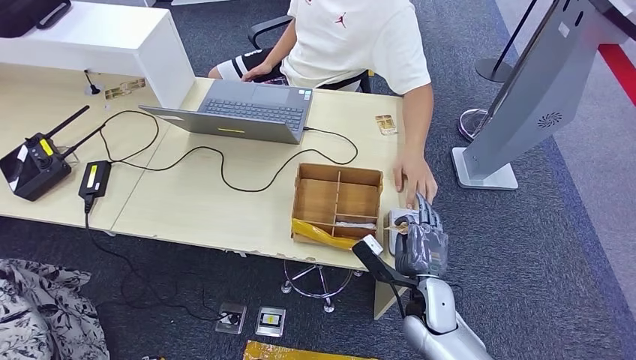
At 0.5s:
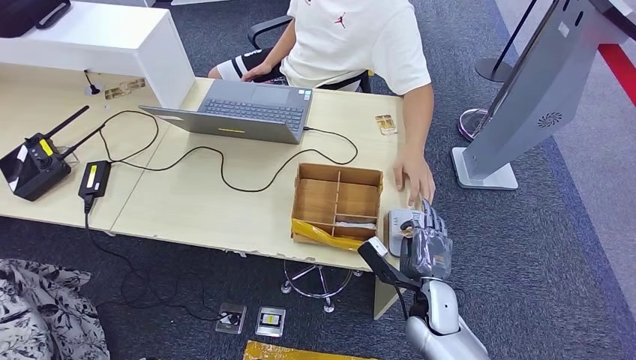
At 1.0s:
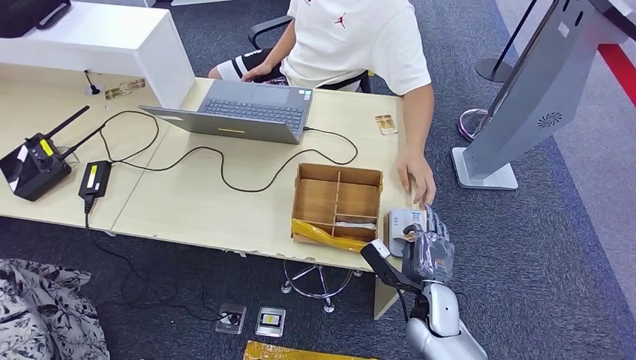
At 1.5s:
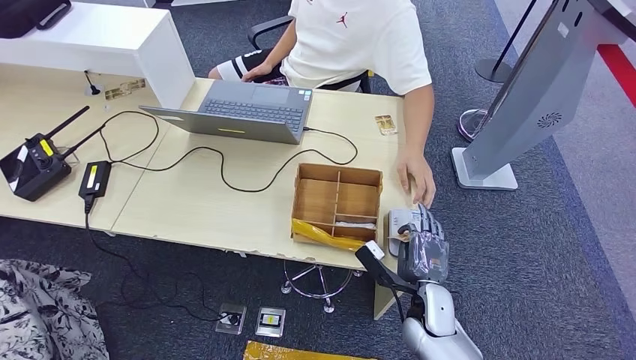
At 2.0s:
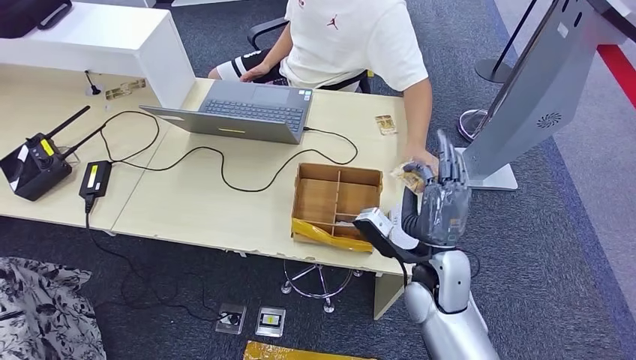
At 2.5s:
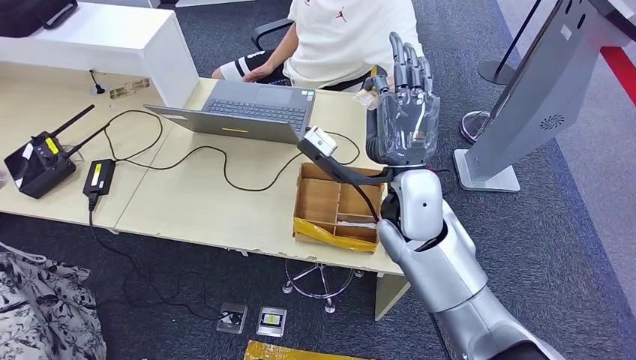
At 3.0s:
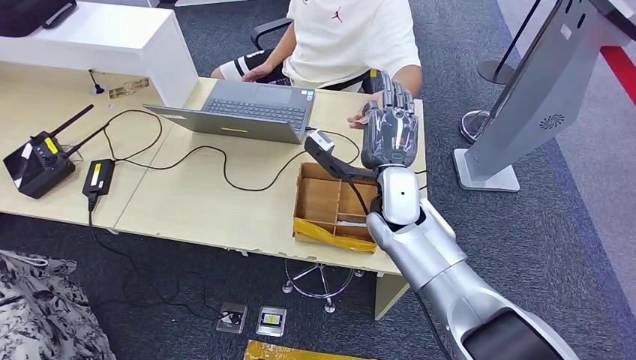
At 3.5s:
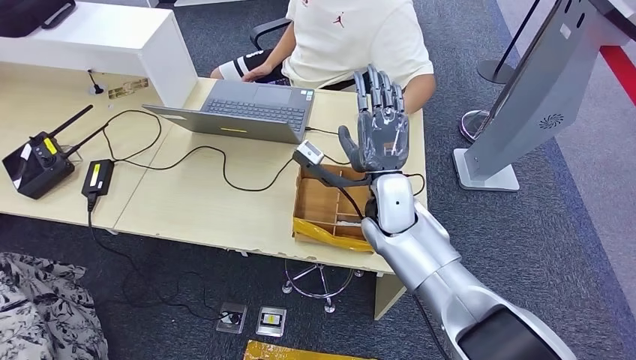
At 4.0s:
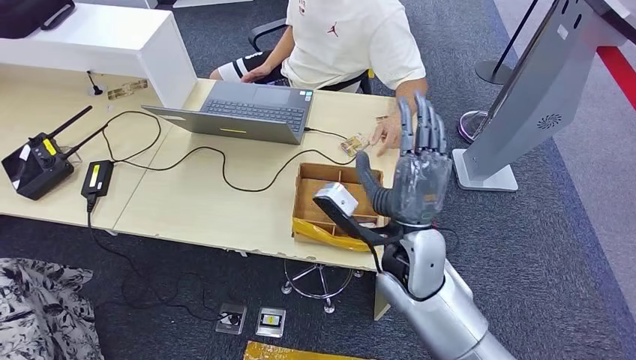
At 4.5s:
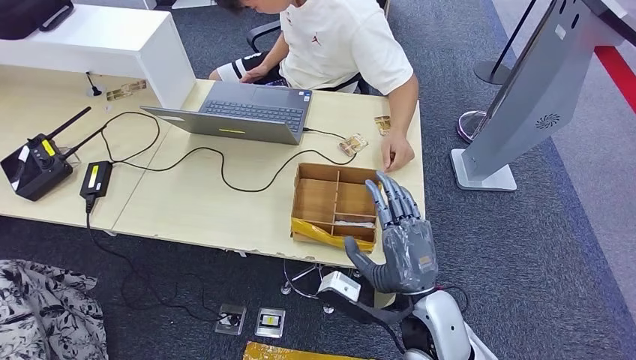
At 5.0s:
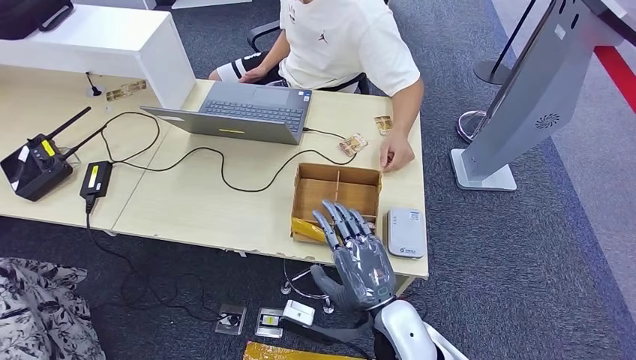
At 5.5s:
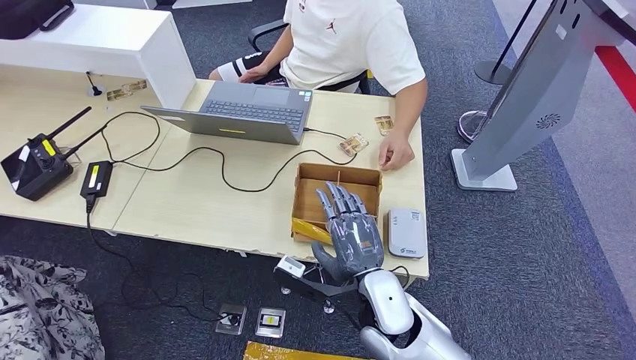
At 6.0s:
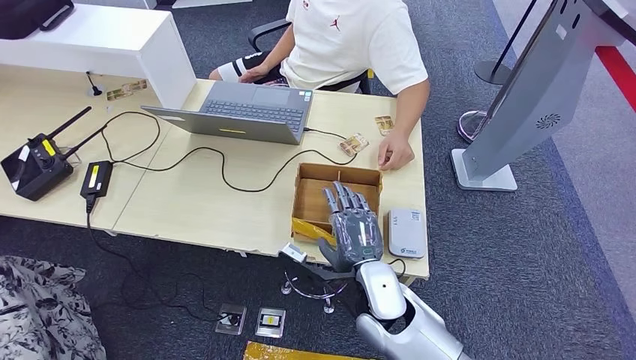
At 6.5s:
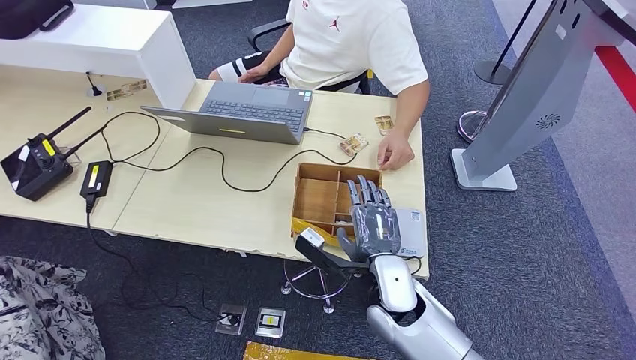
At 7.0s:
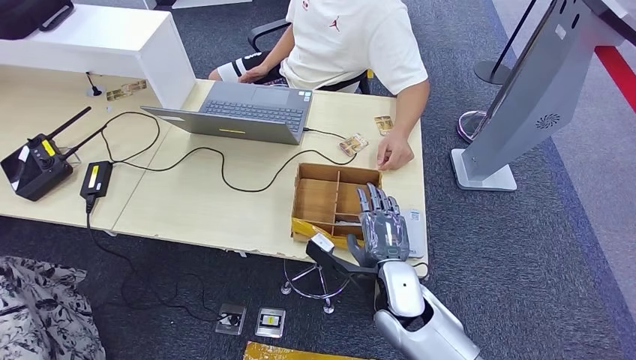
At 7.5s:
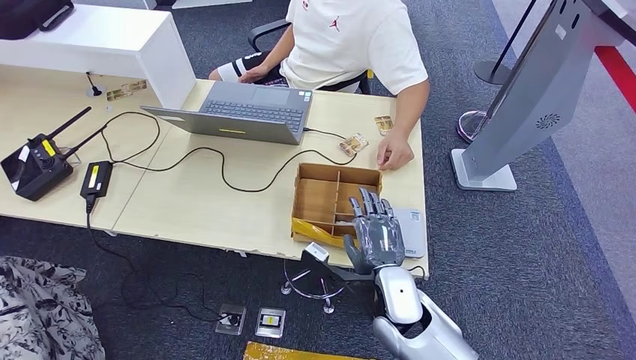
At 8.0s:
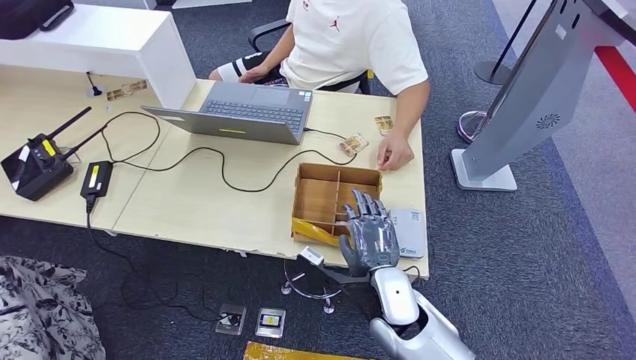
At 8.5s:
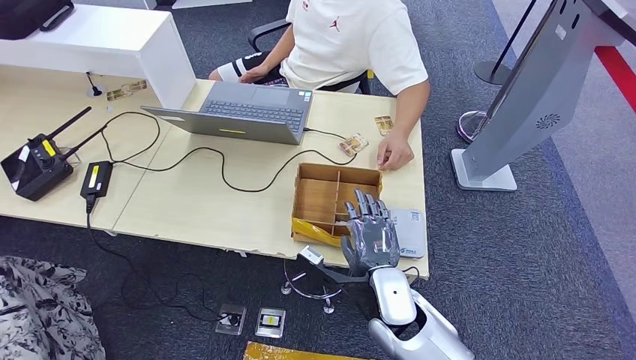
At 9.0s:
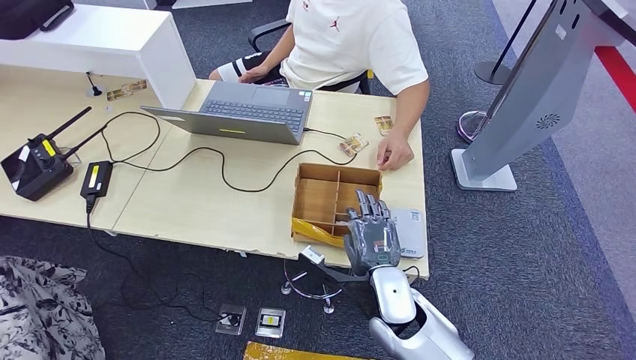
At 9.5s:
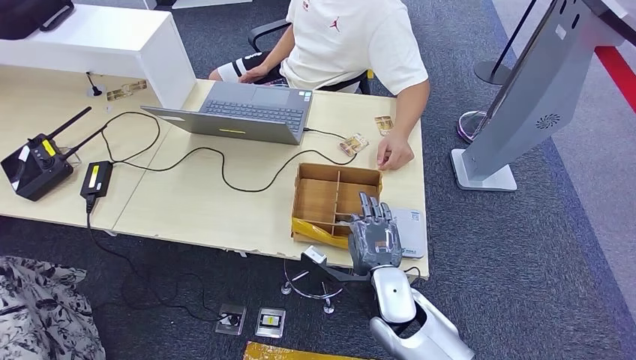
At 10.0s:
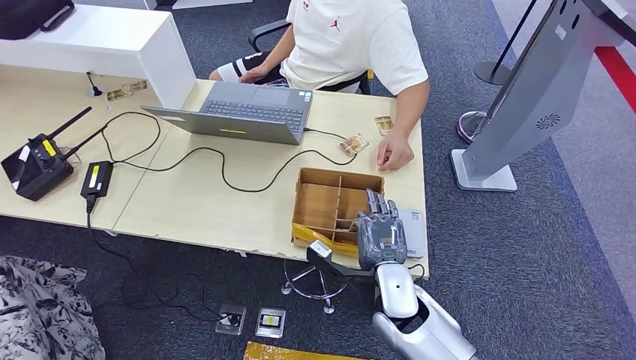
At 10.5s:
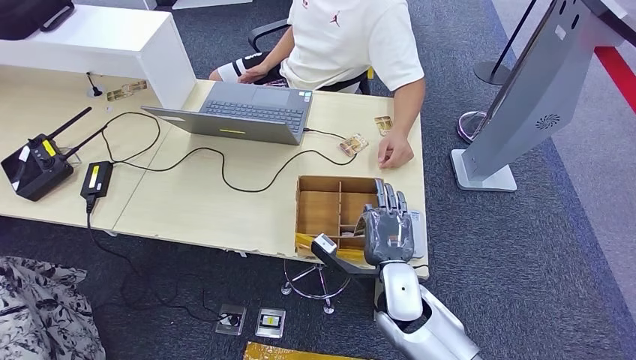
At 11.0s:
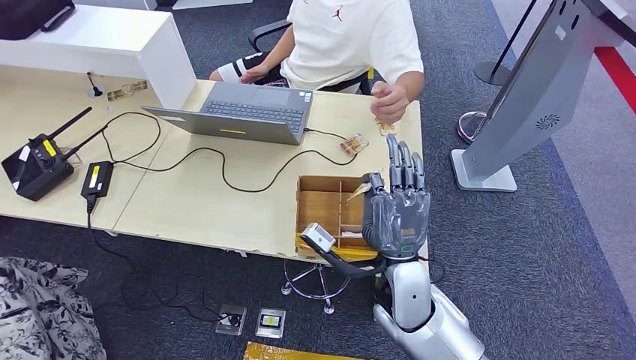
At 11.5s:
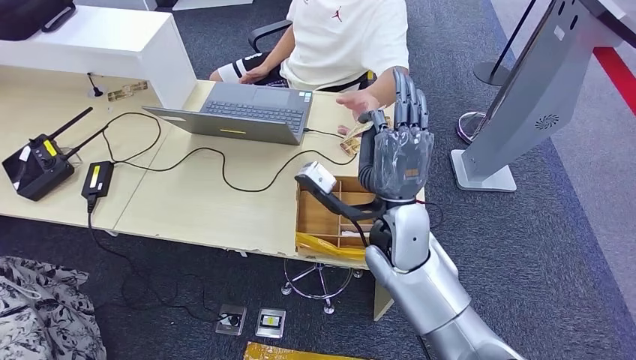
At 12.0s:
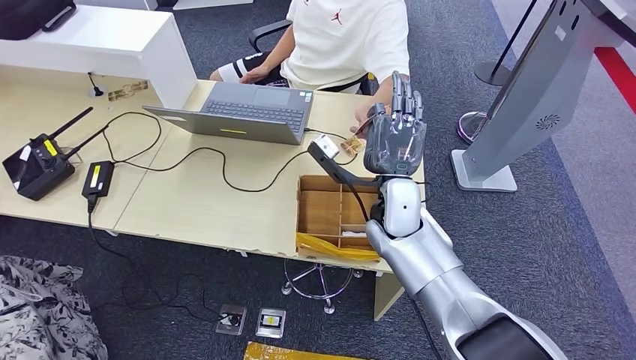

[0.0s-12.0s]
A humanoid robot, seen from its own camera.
Step, 0.5s to 4.5s: Hand the ID card to the person.
Step, 5.0s to 11.0s: Pick up the room key from the key card box.
0.0s to 2.0s: The right hand is displaced upward by approximately 10 cm.
2.0s to 4.0s: The right hand moves upward and to the left, some 10 cm.
4.0s to 6.0s: The right hand moves downward, roughly 10 cm.
6.0s to 10.0s: The hands move only a little.
10.0s to 12.0s: The right hand is displaced forward and upward by about 15 cm.

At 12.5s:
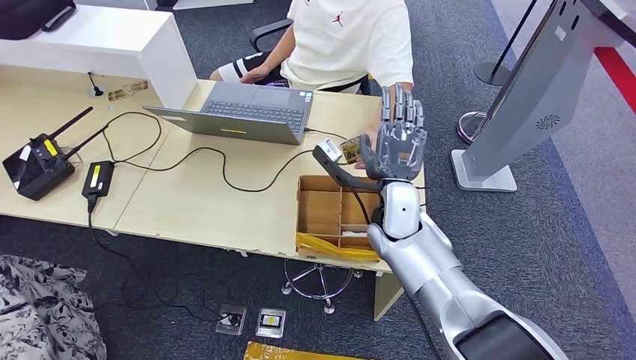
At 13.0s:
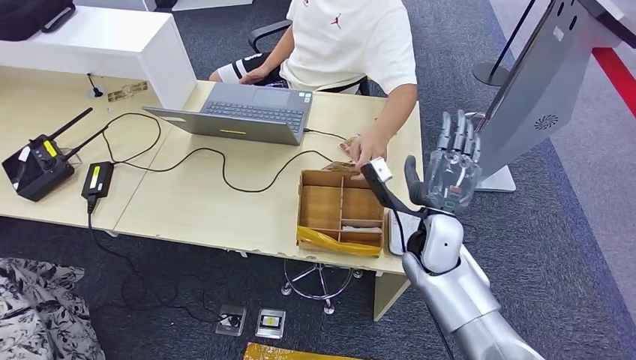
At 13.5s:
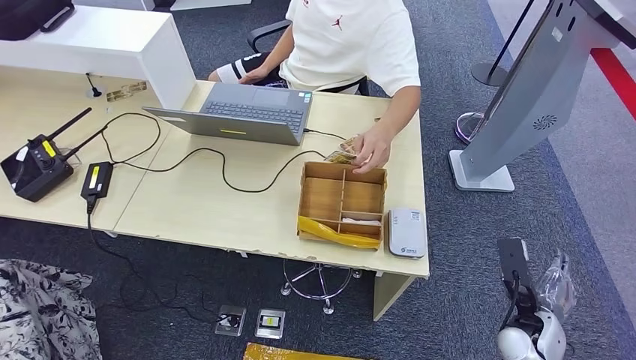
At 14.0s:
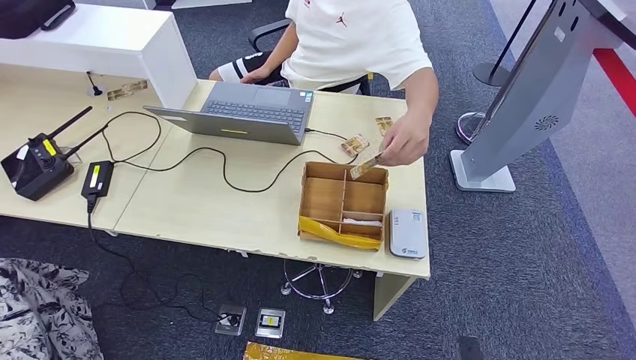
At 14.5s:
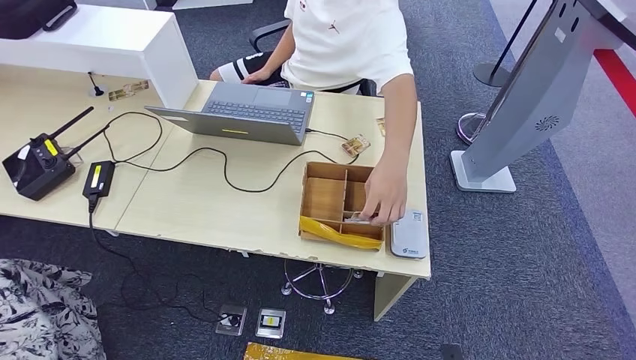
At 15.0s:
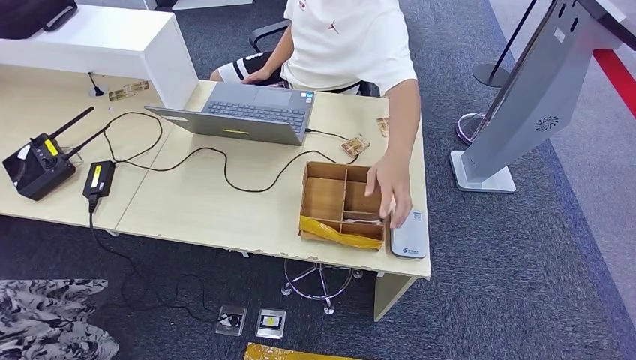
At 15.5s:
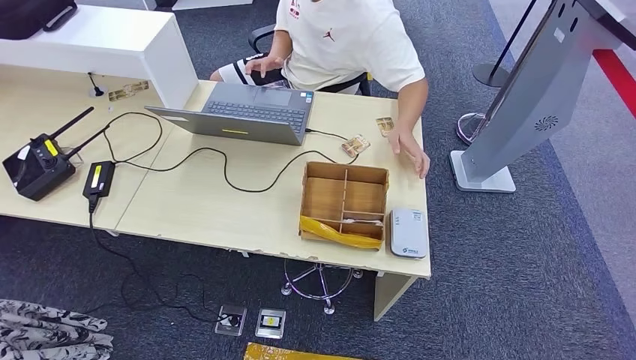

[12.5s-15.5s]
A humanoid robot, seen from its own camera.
Step, 12.5s to 15.5s: Hand the room key to the person.
12.5s to 14.0s: The right hand goes approximately 50 cm backward, downward and to the right.
14.0s to 15.5s: The right hand moves backward, about 10 cm.
